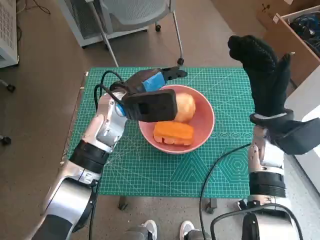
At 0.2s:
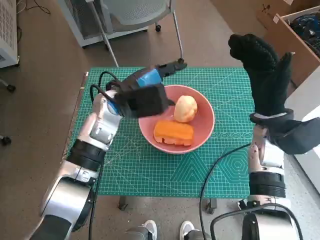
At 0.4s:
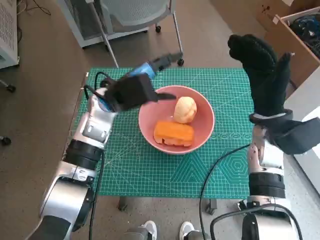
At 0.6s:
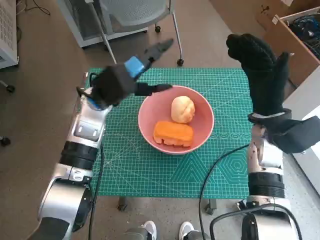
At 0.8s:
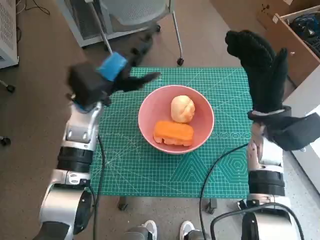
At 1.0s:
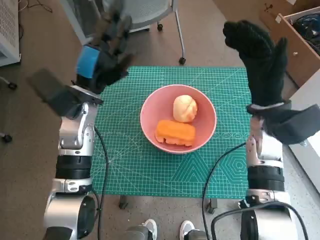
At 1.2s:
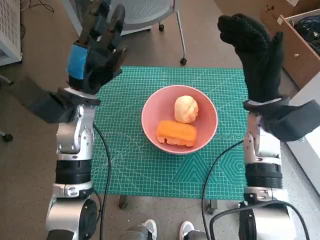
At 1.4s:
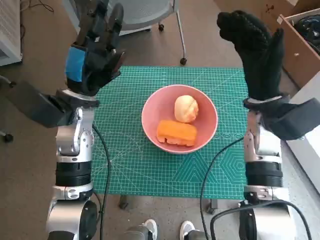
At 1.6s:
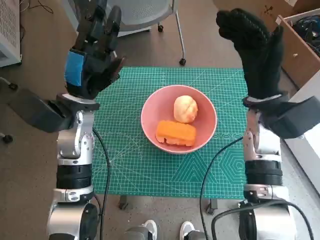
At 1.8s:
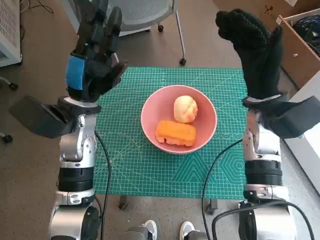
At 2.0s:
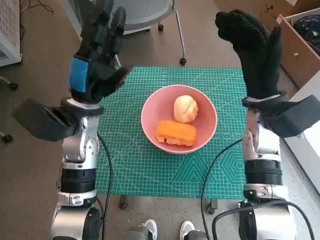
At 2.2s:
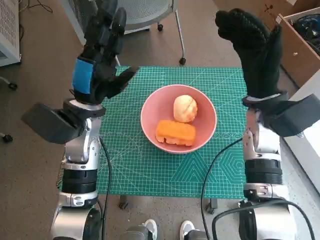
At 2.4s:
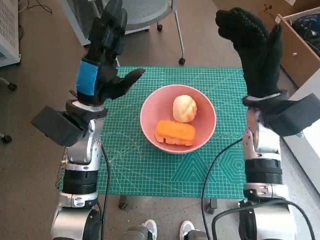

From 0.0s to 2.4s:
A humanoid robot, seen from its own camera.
From 0.0s to 1.2s: The left hand goes approximately 5 cm to the left.

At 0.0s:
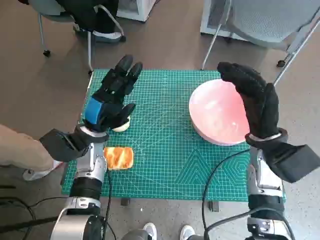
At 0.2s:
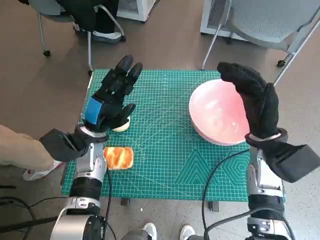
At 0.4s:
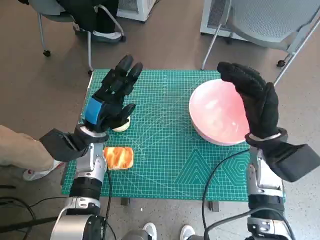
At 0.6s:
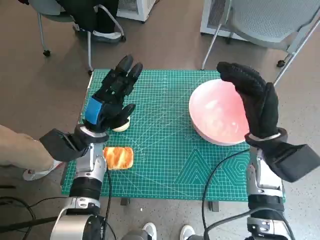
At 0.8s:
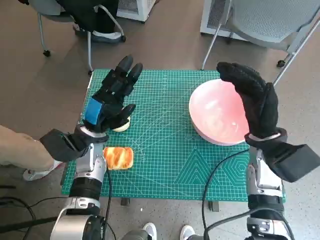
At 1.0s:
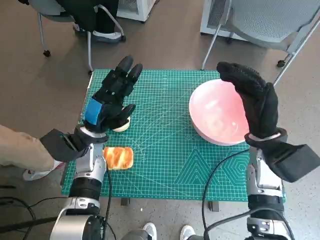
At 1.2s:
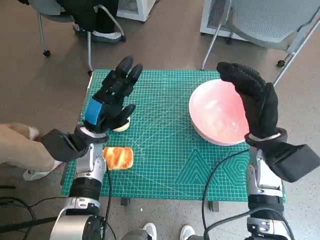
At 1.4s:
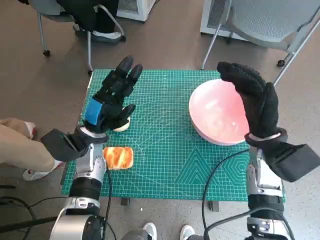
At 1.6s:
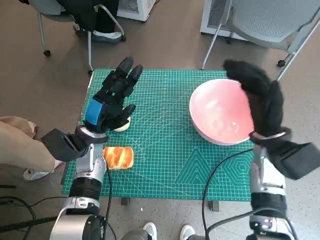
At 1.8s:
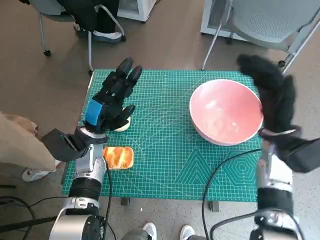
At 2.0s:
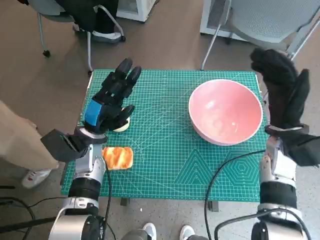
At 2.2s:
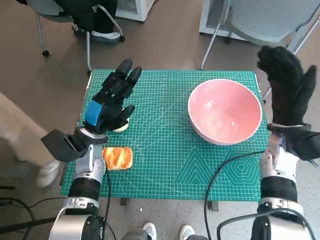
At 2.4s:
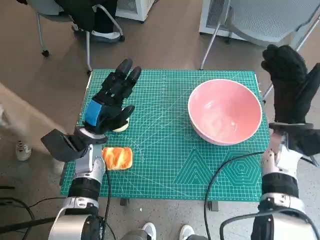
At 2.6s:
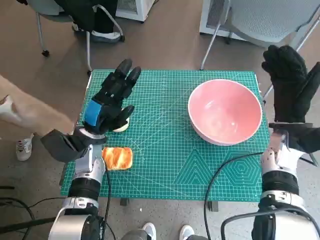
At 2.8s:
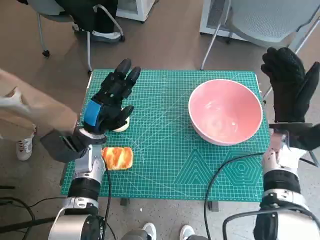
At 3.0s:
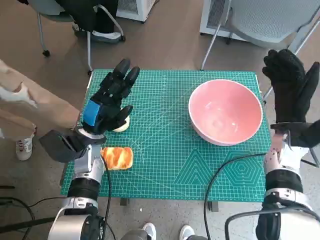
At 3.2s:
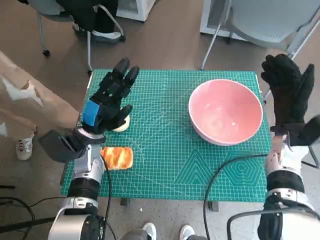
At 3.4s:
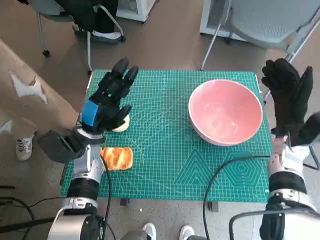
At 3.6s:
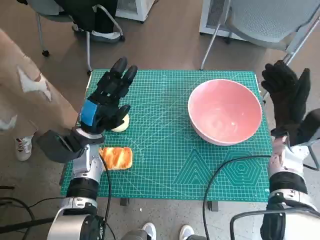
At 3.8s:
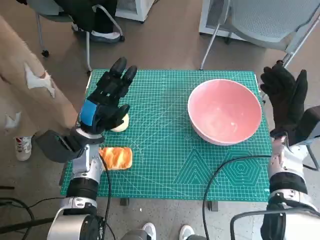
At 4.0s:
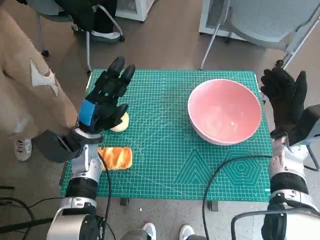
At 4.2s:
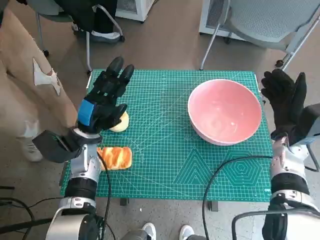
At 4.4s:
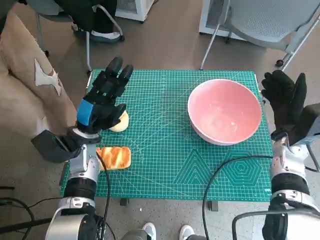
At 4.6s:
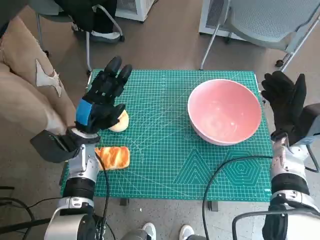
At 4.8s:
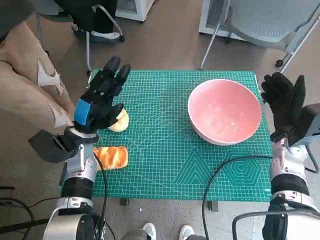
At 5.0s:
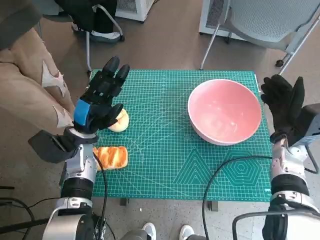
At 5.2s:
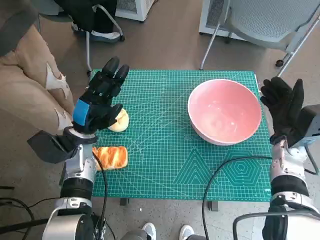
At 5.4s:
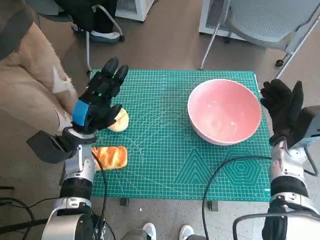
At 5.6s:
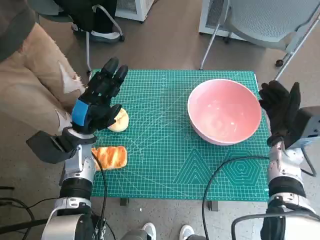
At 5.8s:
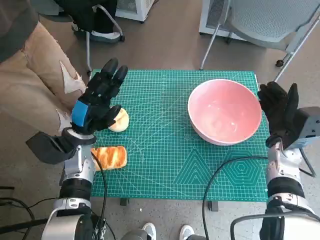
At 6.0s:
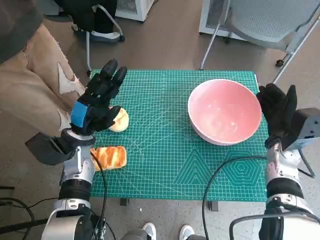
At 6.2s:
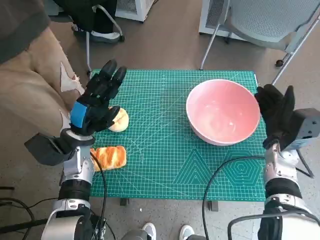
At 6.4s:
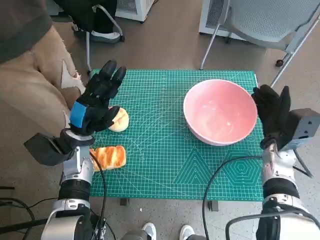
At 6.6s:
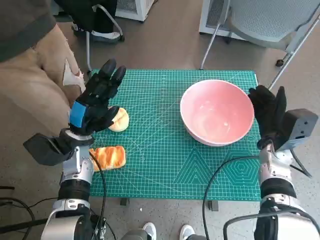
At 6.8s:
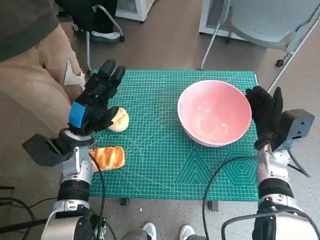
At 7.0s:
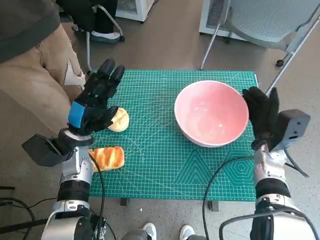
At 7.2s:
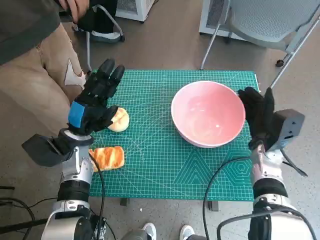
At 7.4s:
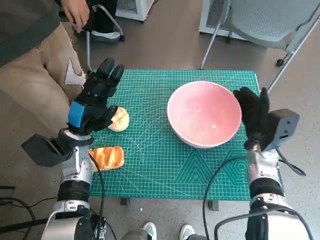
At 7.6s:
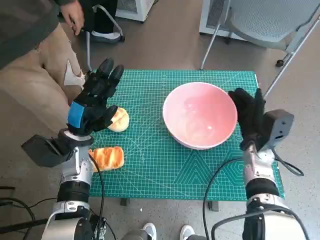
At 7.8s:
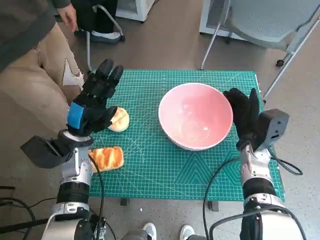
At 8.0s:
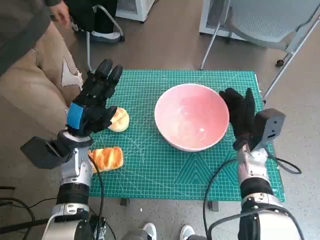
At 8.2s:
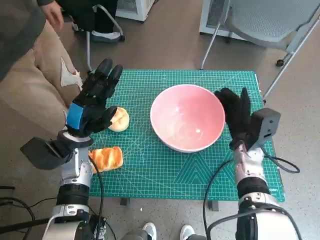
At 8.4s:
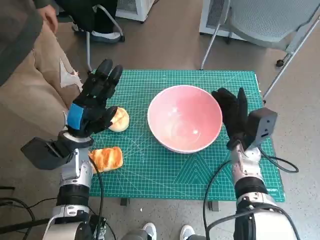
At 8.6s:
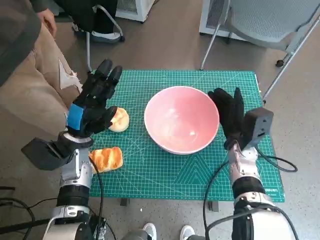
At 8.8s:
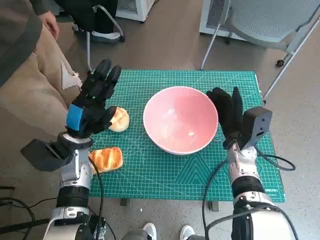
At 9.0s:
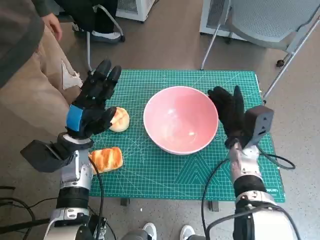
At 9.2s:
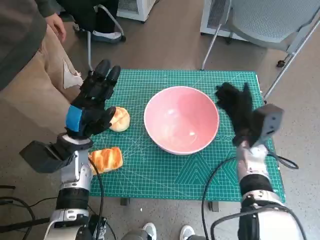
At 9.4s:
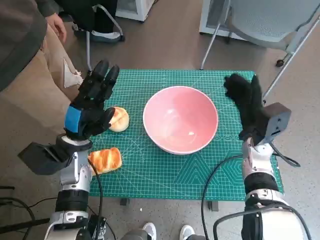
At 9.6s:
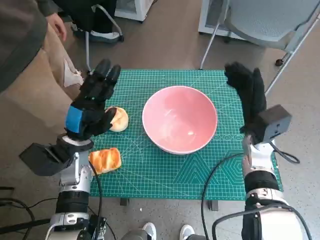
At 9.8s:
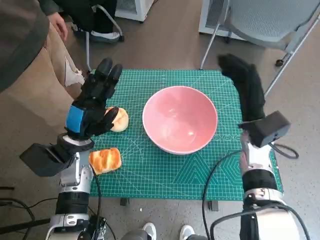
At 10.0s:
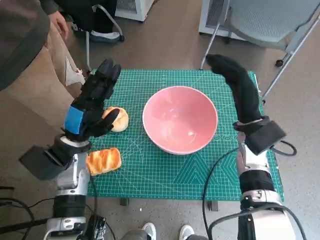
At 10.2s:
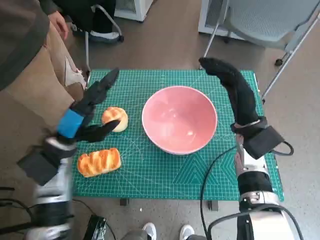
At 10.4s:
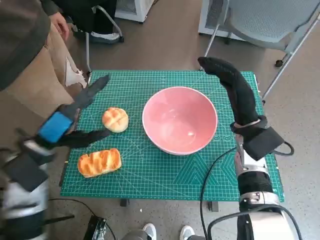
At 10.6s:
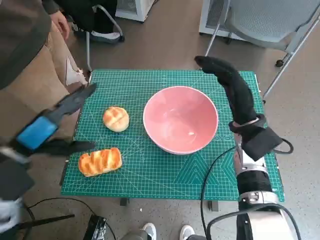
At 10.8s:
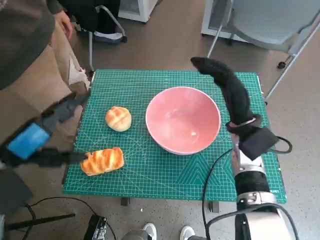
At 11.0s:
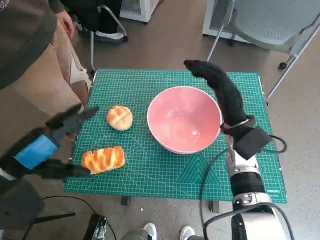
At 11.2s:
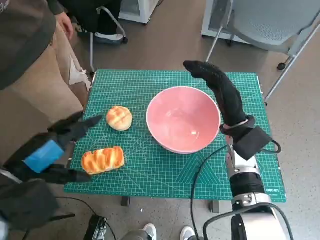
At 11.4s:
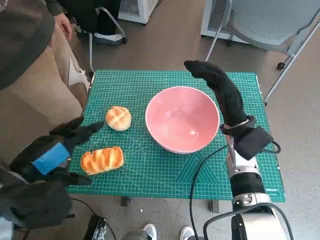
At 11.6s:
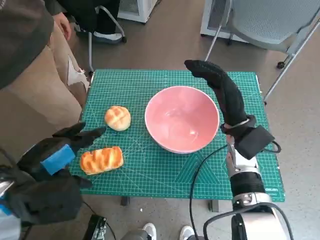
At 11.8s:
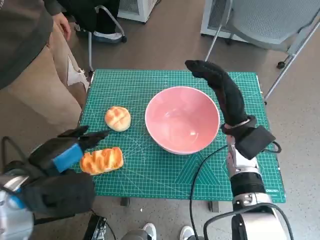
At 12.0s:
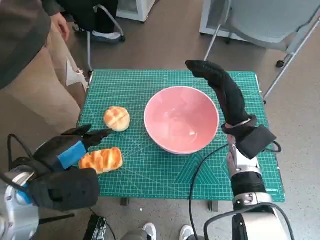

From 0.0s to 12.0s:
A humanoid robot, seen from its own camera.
Step, from 0.0s to 9.2s: Move the pink bowl to the center of table with right hand.
From 1.6s to 3.0s: The right hand goes about 5 cm to the right.
From 6.0s to 7.6s: The right hand moves approximately 5 cm.
From 9.0s to 10.4s: Both hands travel together upward, about 5 cm.
From 10.4s to 12.0s: The left hand shifts approximately 5 cm backward.

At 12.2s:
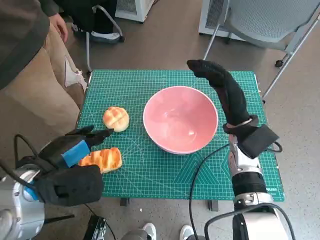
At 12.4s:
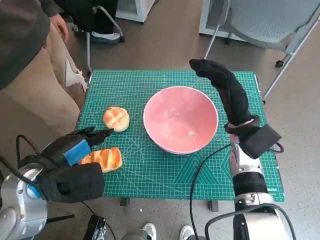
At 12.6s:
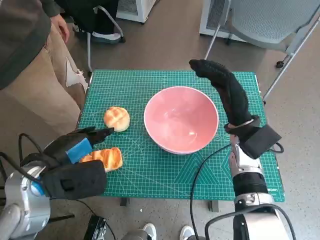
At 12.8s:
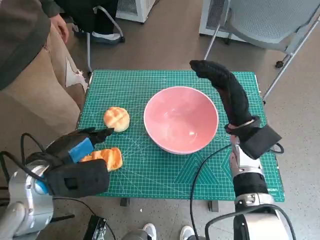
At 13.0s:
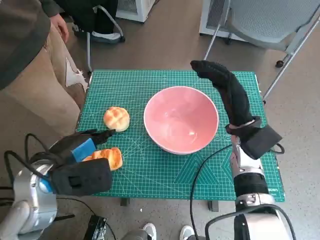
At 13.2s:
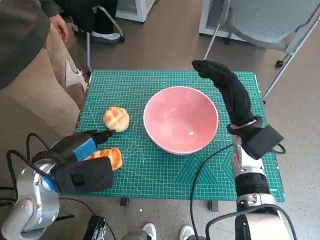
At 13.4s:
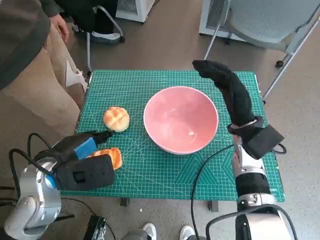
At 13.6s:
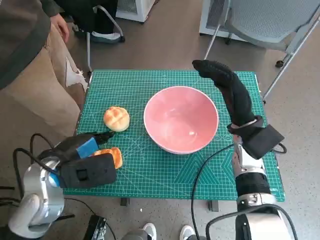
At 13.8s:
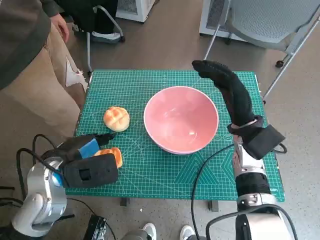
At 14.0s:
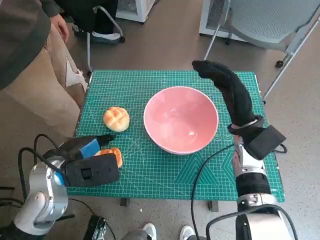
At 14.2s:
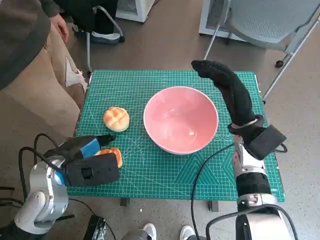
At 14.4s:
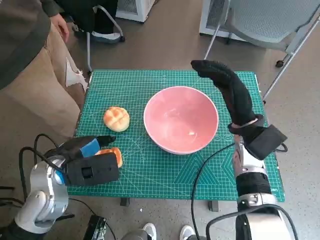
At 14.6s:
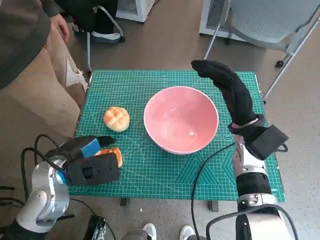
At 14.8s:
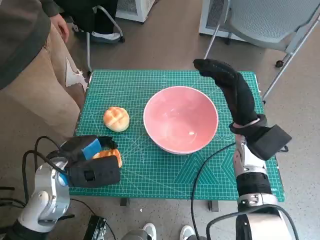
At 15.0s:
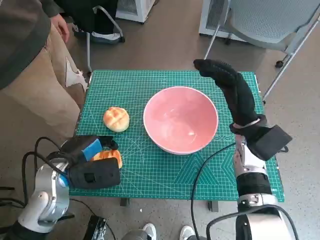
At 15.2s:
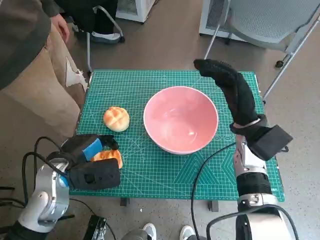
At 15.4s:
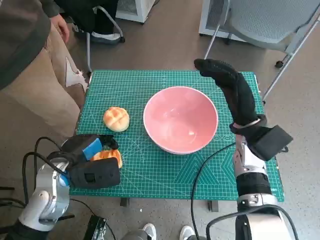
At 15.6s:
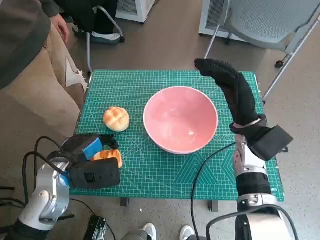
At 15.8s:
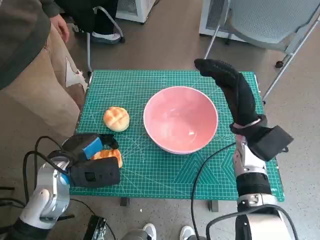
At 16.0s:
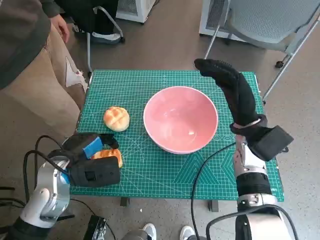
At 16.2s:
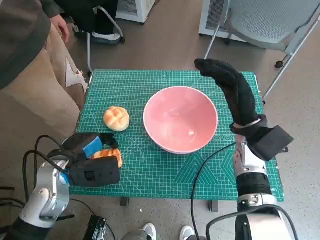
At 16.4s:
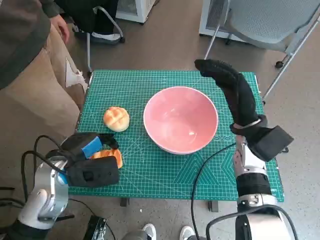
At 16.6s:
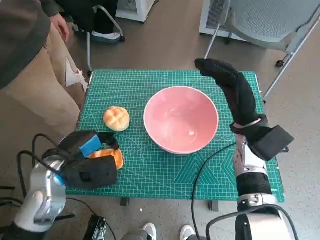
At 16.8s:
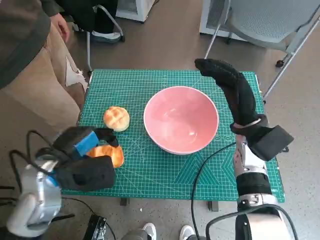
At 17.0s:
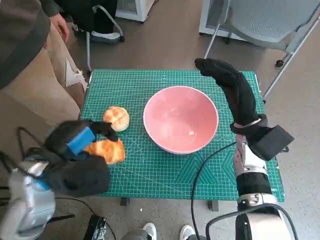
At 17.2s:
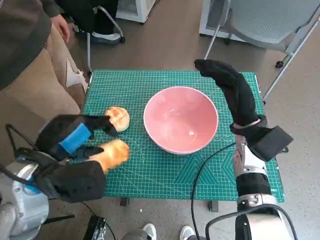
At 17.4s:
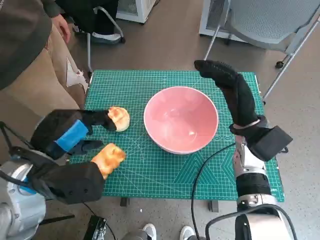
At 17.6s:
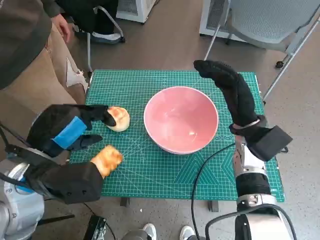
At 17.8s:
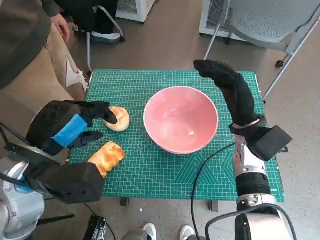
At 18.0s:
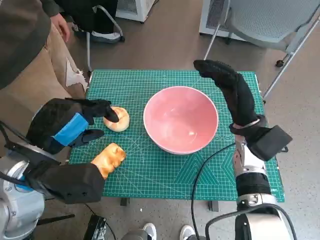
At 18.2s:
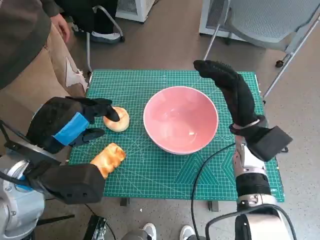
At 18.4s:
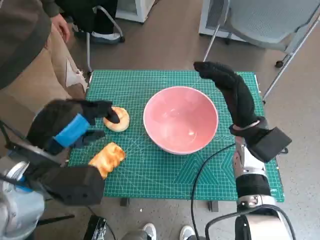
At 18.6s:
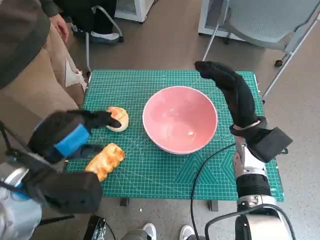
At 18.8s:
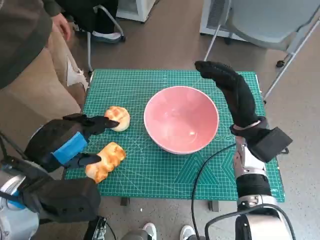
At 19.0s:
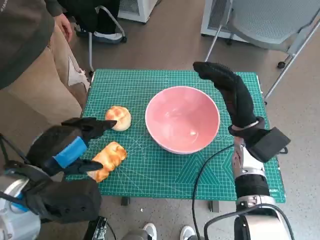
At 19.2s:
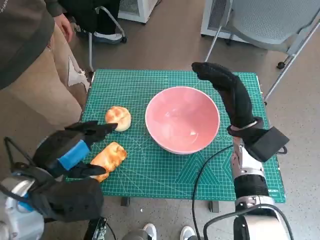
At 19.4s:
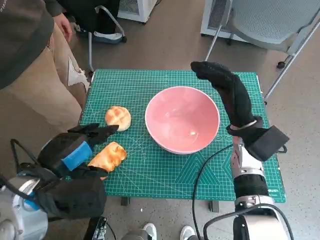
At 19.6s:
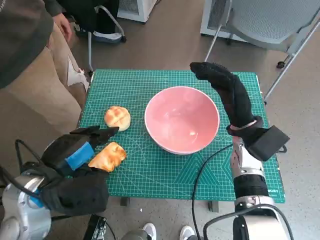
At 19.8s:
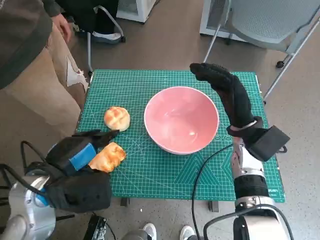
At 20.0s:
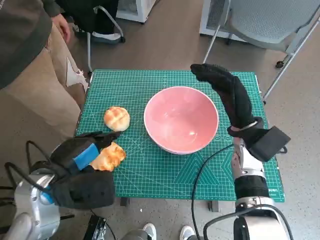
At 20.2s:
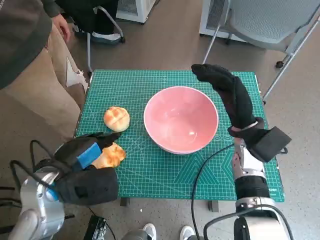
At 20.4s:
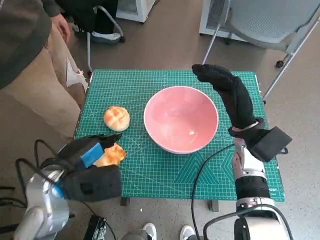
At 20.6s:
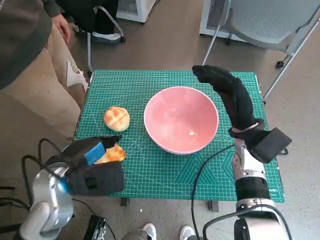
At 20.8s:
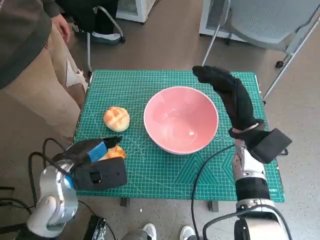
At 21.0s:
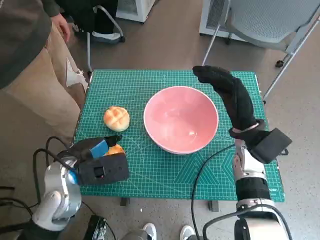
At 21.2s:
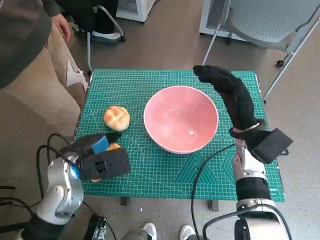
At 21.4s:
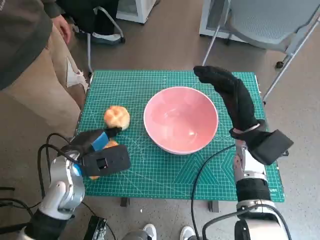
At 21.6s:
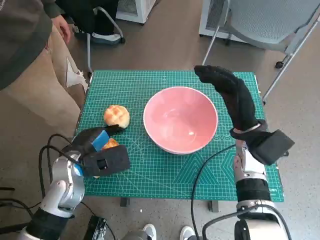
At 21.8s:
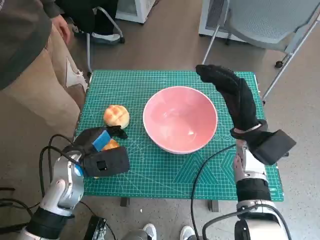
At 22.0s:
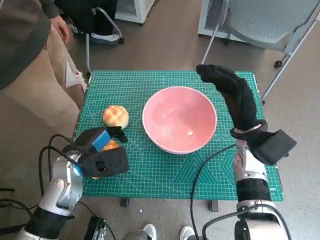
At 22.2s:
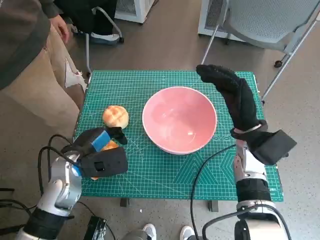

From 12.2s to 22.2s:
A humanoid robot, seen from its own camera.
Step, from 12.2s to 22.0s: Grasp the long bread with left hand.
From 12.2s to 13.6s: There are only small adjustments of the hands.
From 13.6s to 15.0s: The hands stay close to where they were, moving slightly.
From 15.0s to 16.4s: Both hands stay put.
From 16.4s to 18.0s: The left hand is displaced upward by some 10 cm.
From 19.4s to 20.8s: The left hand travels downward by some 5 cm.
From 20.8s to 22.2s: The left hand changes place by roughly 5 cm.
